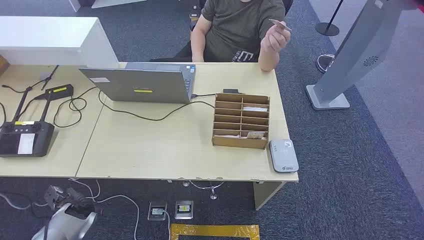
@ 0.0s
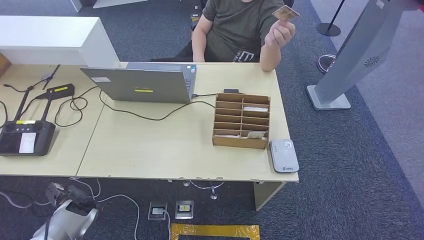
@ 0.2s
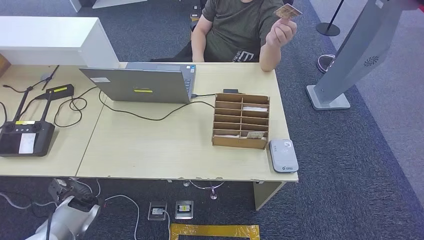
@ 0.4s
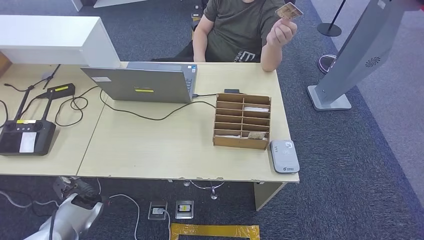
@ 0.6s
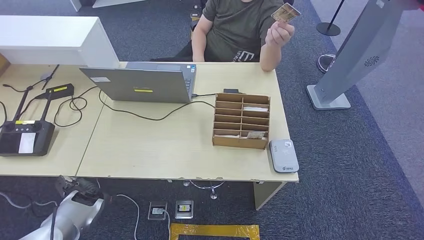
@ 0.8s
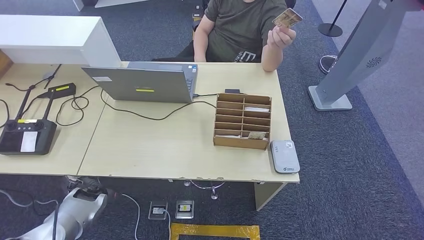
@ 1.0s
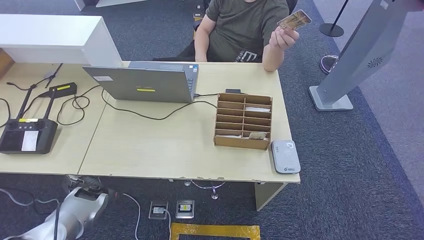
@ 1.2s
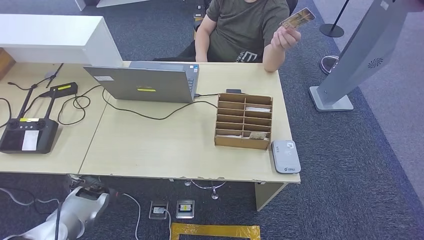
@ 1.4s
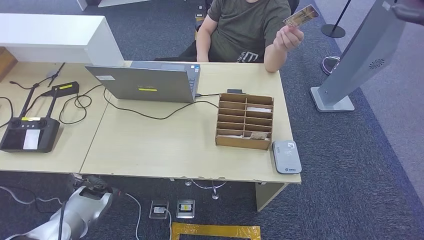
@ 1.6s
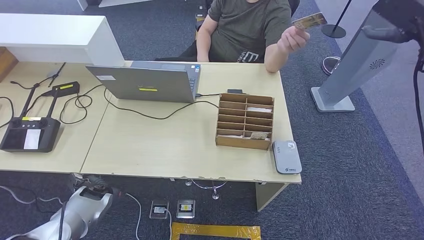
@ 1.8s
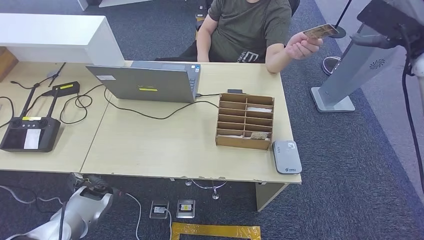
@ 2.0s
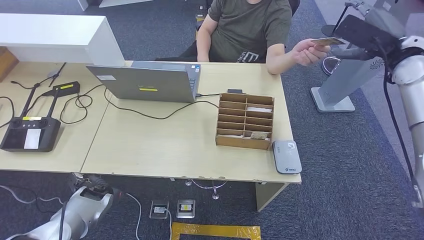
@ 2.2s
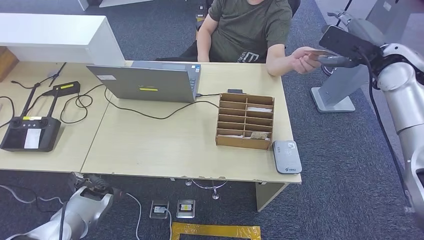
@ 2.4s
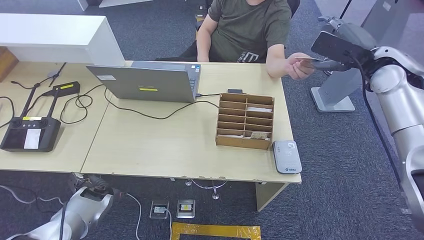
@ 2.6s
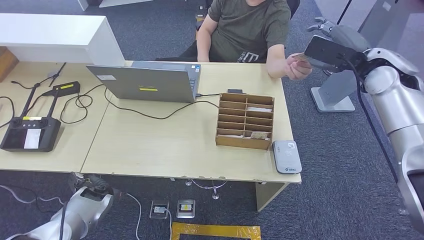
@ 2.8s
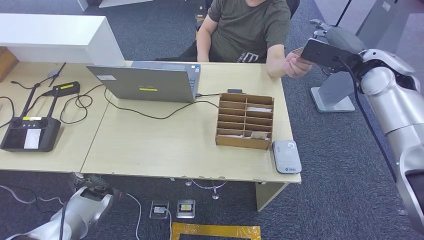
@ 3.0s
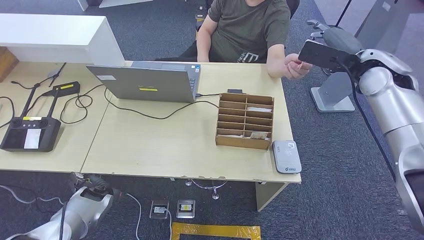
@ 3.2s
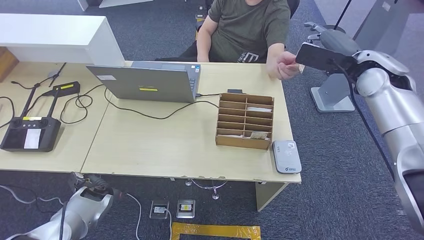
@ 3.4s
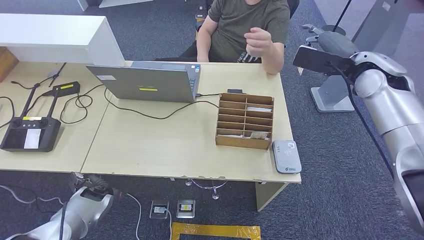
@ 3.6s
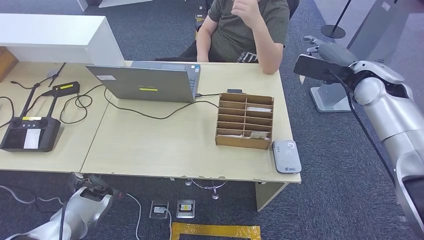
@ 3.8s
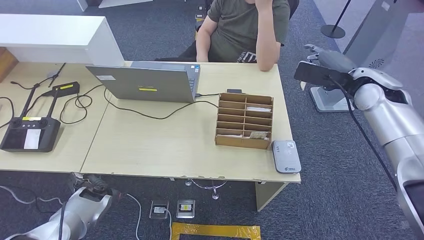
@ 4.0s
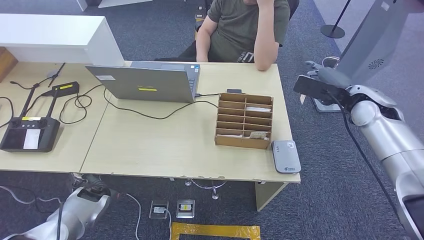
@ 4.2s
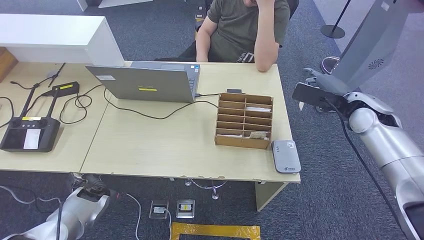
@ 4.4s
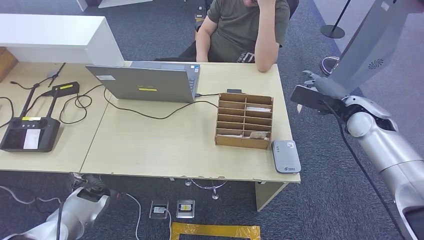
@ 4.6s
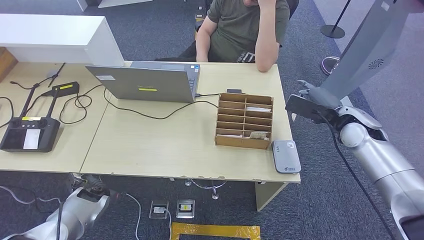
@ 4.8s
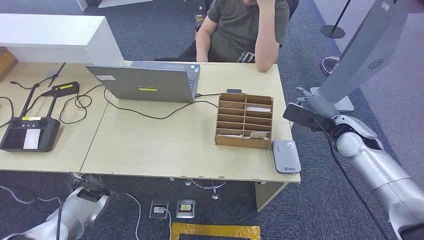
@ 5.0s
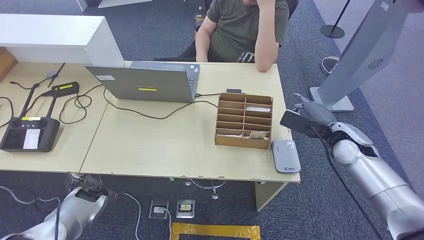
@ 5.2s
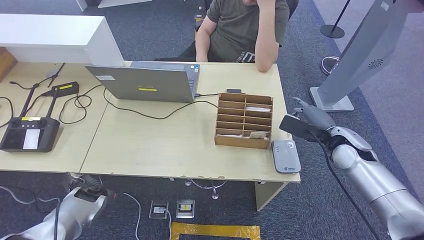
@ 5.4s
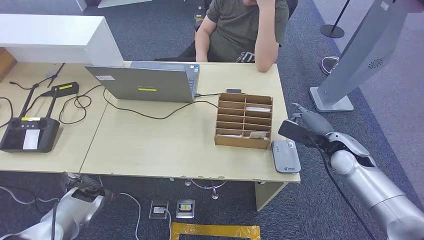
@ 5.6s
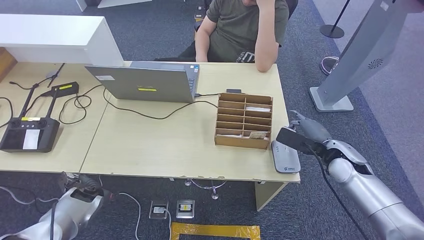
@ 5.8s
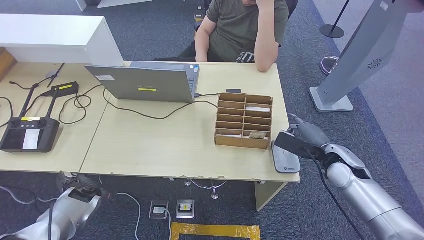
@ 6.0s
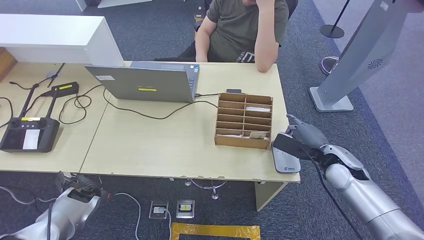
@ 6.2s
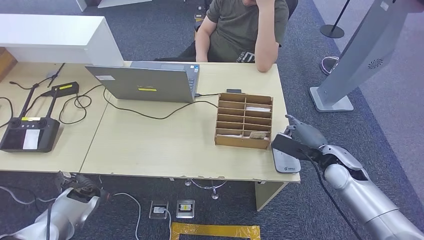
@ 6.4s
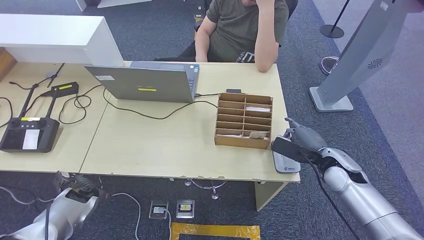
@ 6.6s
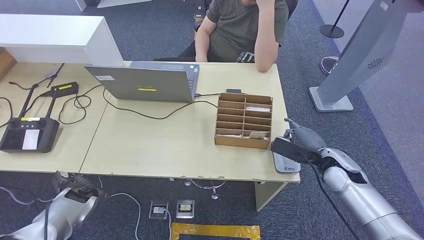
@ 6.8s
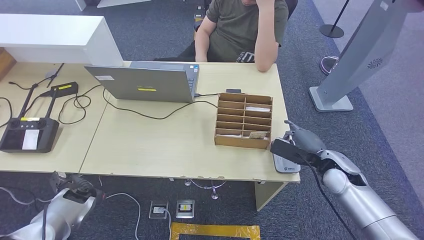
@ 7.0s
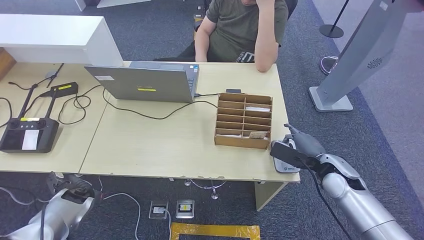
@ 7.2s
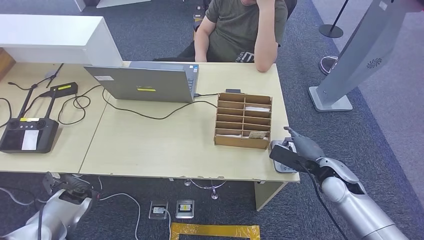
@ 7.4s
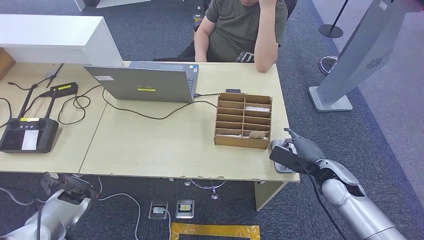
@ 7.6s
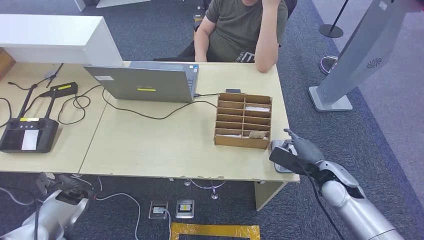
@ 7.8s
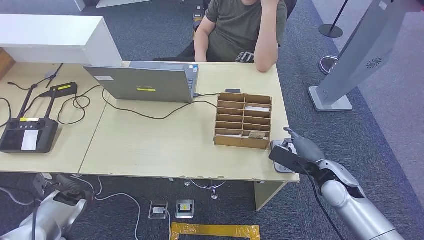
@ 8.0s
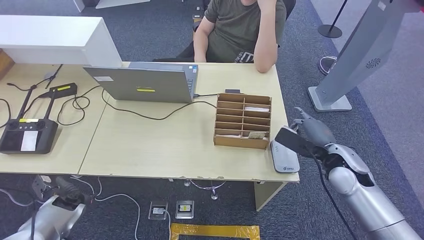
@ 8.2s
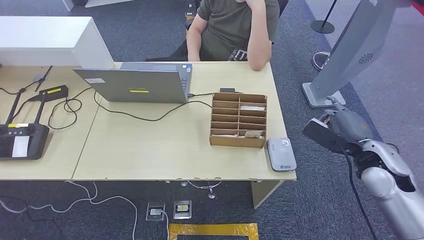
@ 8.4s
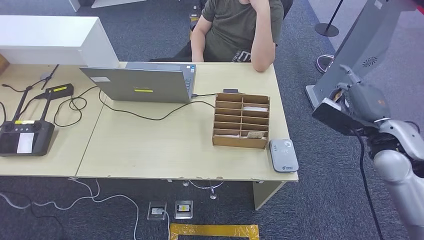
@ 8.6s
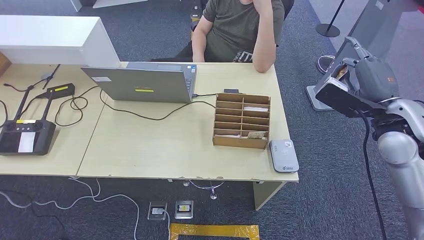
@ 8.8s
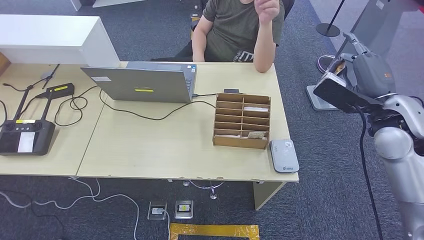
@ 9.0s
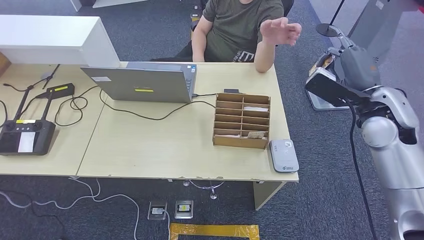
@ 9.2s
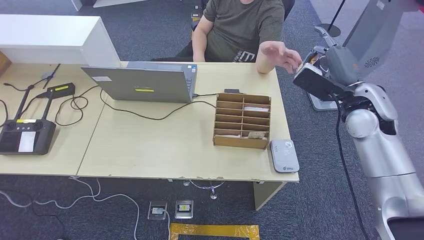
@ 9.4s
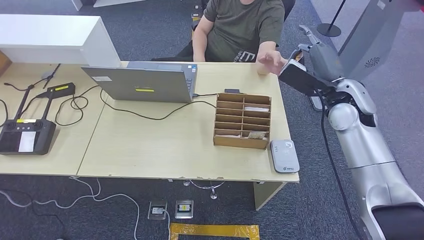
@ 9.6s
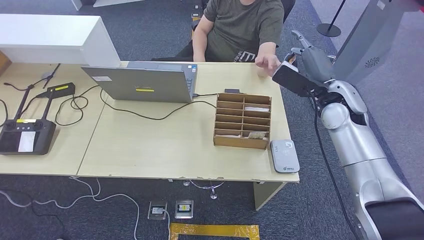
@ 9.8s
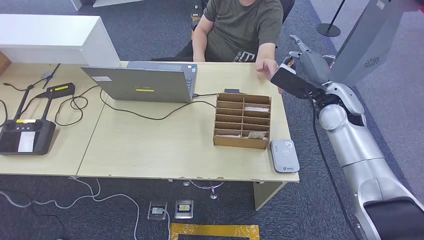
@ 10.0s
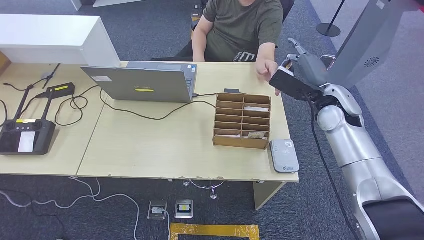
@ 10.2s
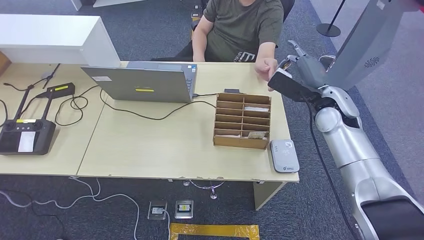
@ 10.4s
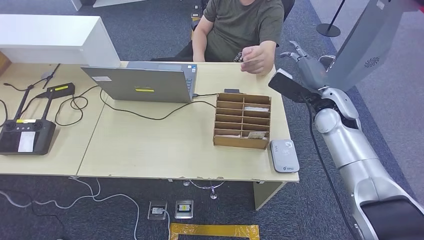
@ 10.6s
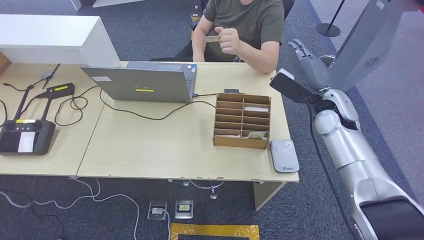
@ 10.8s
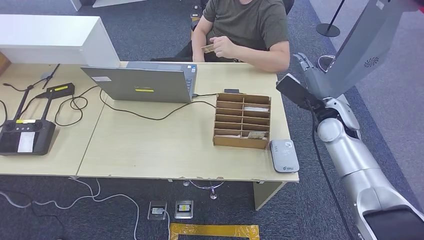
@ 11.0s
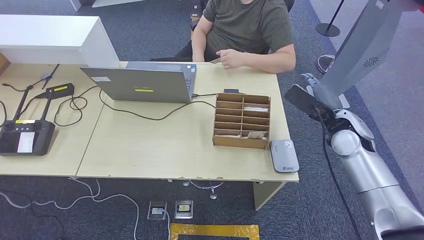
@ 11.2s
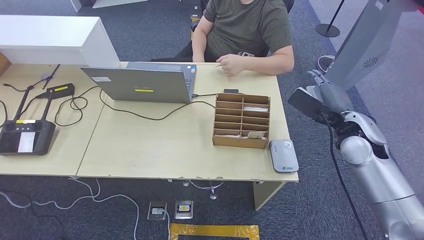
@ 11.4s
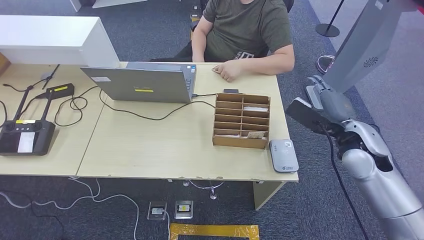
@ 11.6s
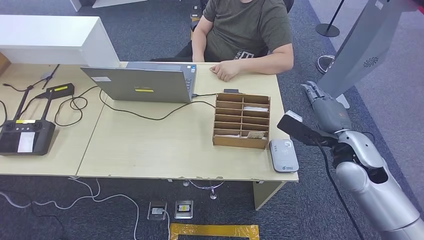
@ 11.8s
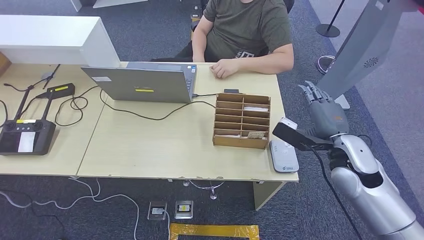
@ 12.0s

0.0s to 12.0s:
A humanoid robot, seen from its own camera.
Step, 0.0s to 4.6s: Take the ID card from the person's hand.
Step, 5.0s to 7.6s: Place the ID card on the card reader.
Step, 7.8s to 10.6s: Hand the ID card to the person.
1.6s to 3.0s: The right hand shifts approximately 15 cm to the left and downward.
3.0s to 4.4s: The right hand goes approximately 10 cm downward.
4.4s to 6.0s: The right hand is displaced downward and backward by about 15 cm.
6.0s to 7.6s: The right hand ends up roughly 5 cm from where it was.
9.0s to 10.4s: The right hand goes roughly 10 cm to the left and forward.
10.4s to 12.0s: The right hand heads backward and downward, covering roughly 15 cm.

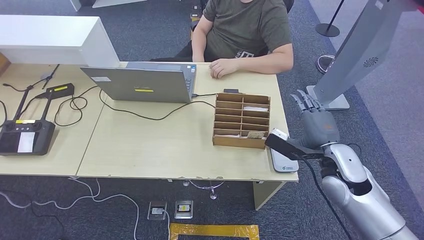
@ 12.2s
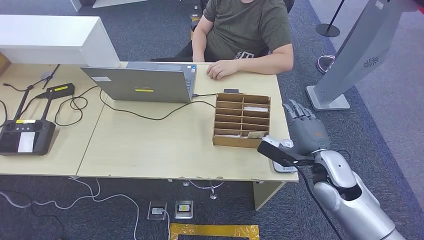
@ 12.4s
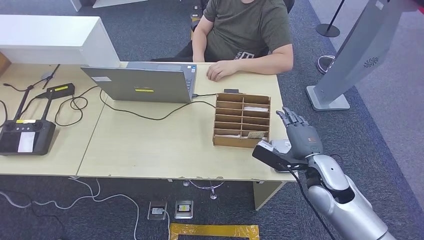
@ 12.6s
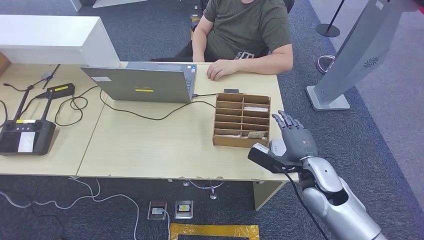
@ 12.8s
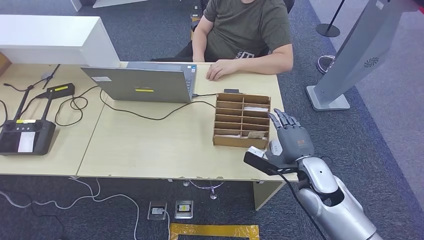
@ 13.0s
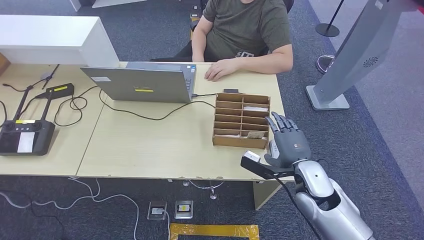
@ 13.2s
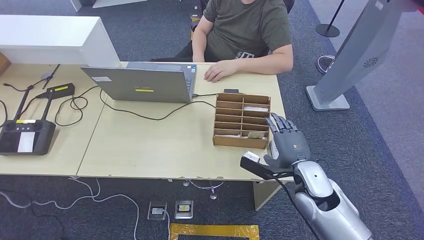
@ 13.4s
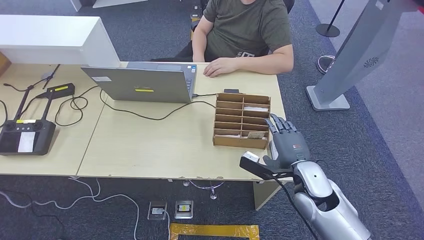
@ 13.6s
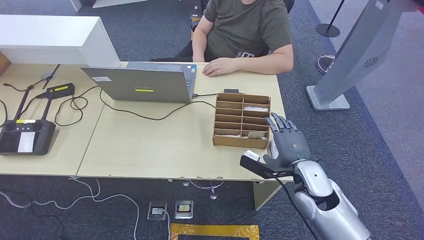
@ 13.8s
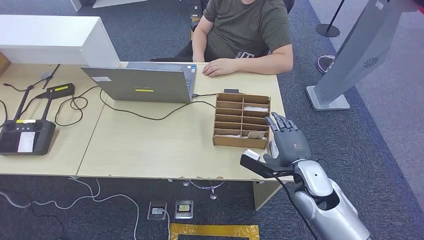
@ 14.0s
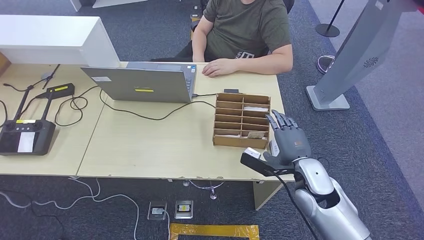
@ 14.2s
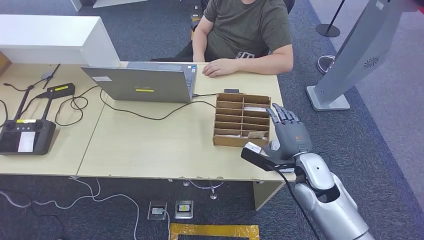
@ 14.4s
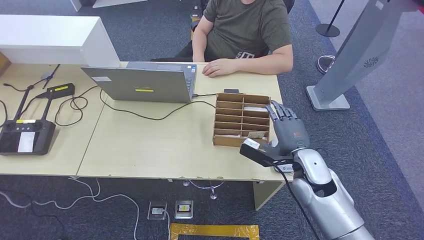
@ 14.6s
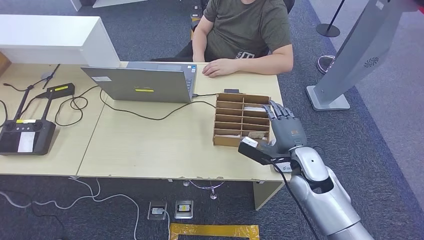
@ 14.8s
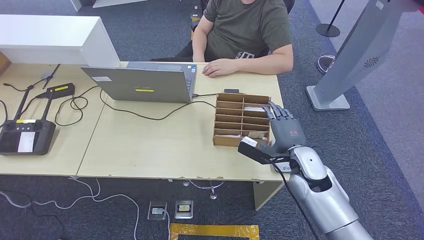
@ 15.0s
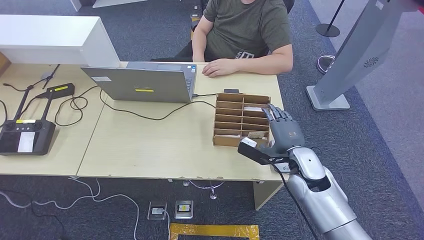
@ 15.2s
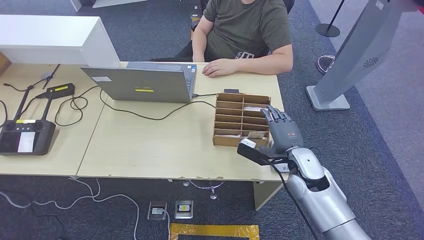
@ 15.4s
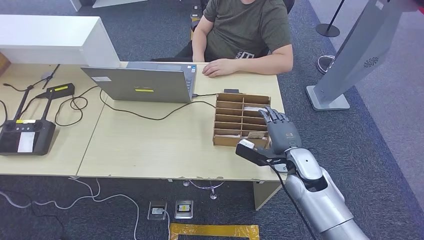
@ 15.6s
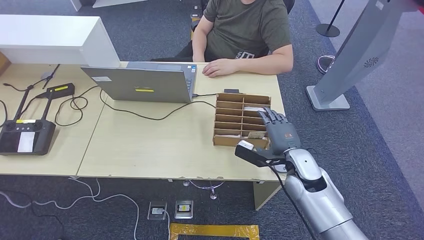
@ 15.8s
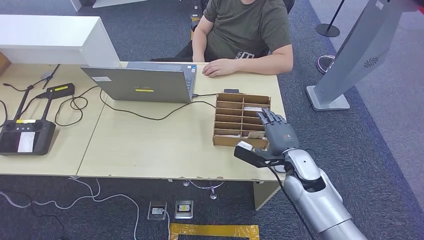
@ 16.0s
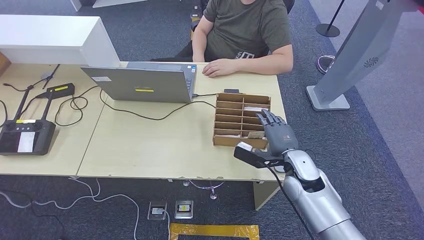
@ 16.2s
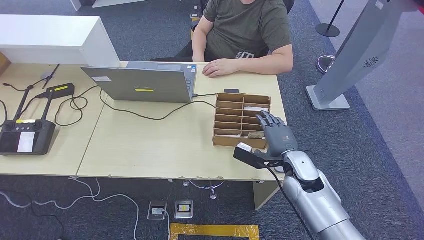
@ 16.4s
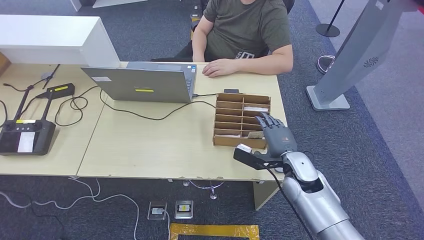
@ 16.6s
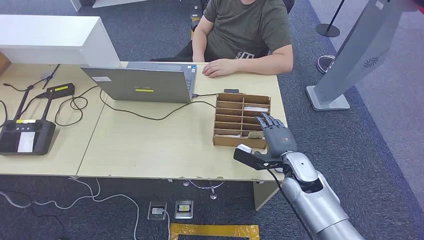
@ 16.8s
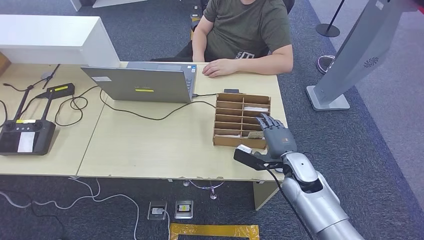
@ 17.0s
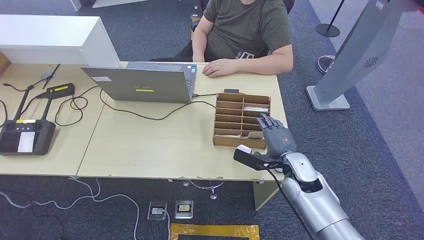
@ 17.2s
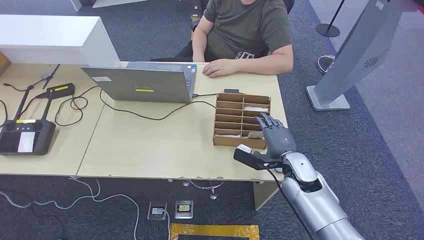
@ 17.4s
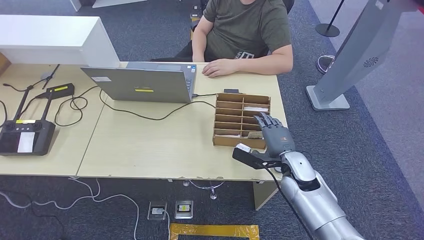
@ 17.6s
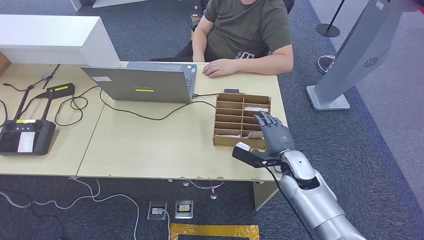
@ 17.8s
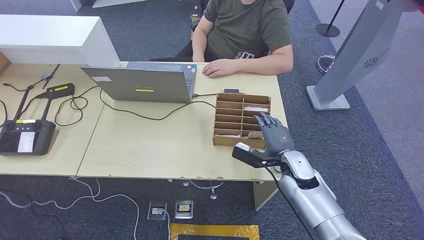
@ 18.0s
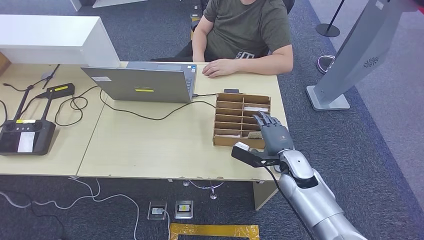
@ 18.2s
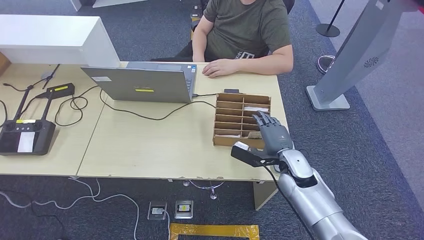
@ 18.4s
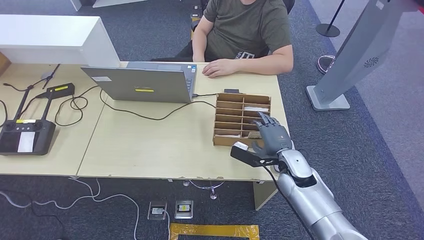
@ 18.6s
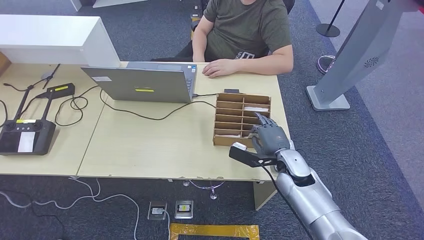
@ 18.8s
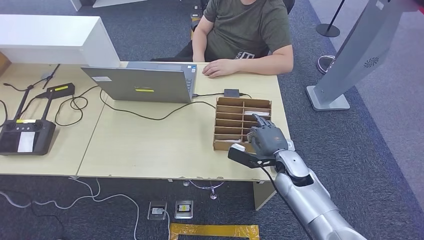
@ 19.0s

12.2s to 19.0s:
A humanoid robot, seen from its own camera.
12.2s to 13.6s: The right hand travels to the left by roughly 5 cm.
13.6s to 16.2s: The hands move only a little.
16.2s to 17.6s: Both hands stay put.
17.6s to 19.0s: Both hands stay put.
